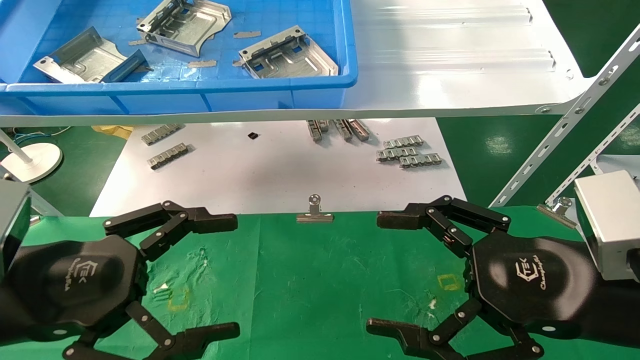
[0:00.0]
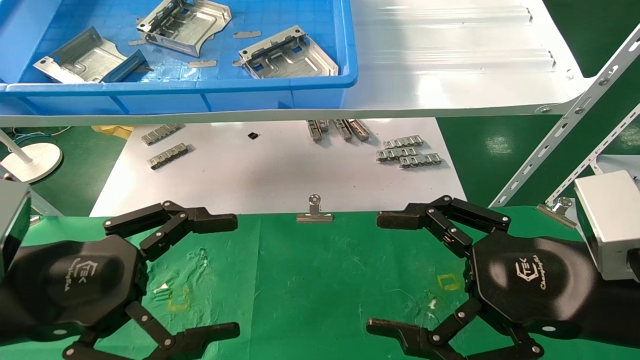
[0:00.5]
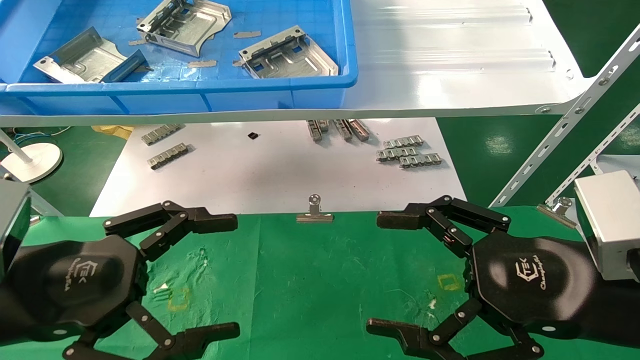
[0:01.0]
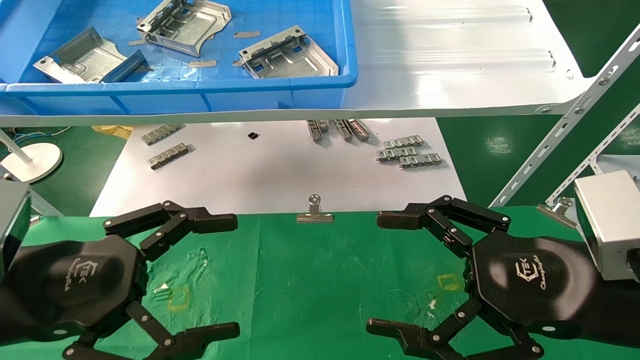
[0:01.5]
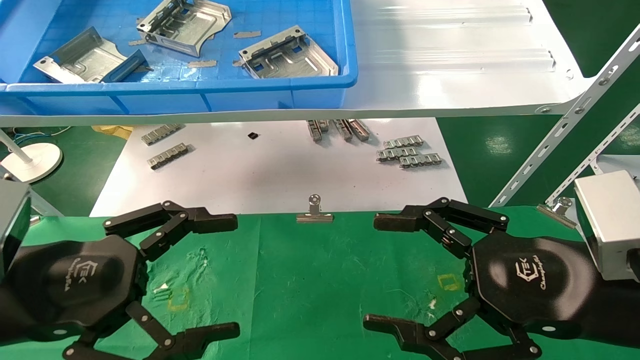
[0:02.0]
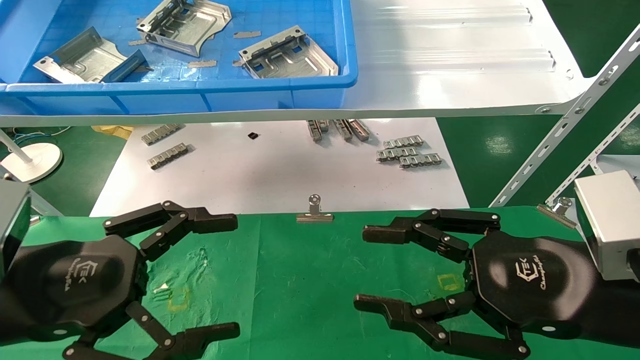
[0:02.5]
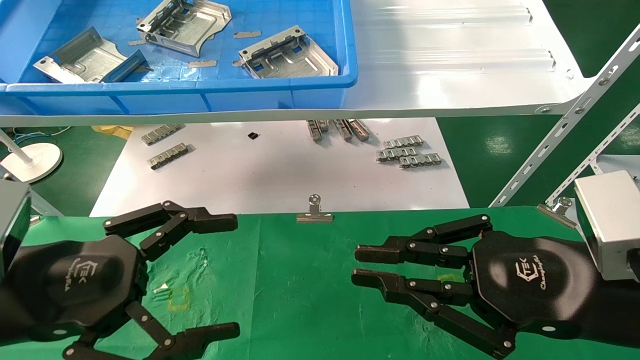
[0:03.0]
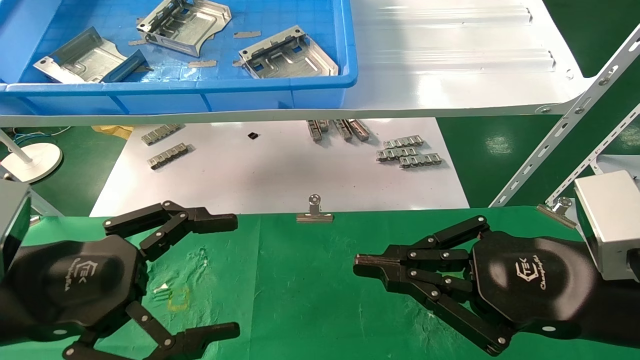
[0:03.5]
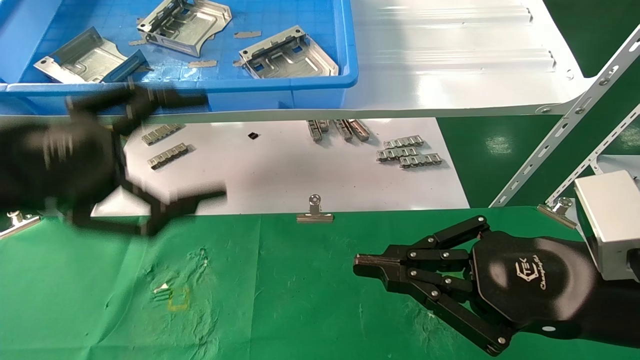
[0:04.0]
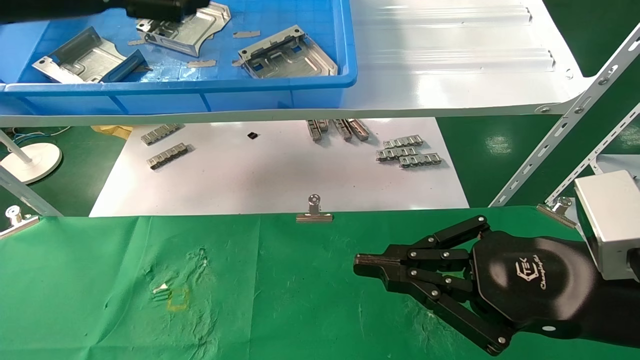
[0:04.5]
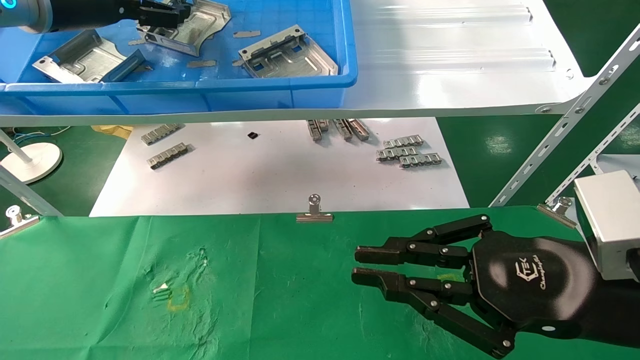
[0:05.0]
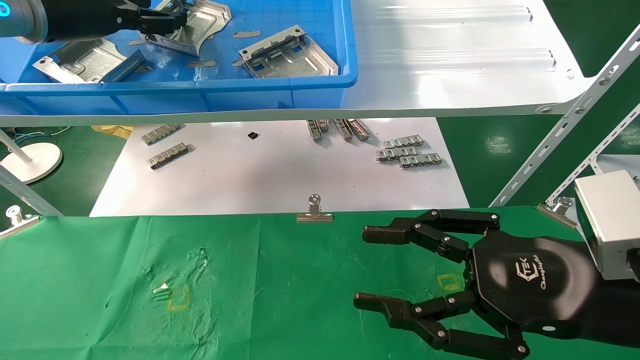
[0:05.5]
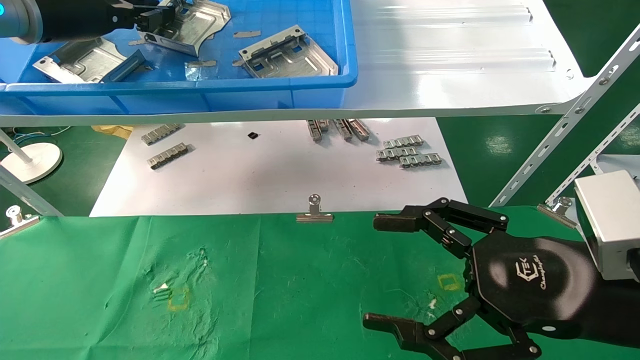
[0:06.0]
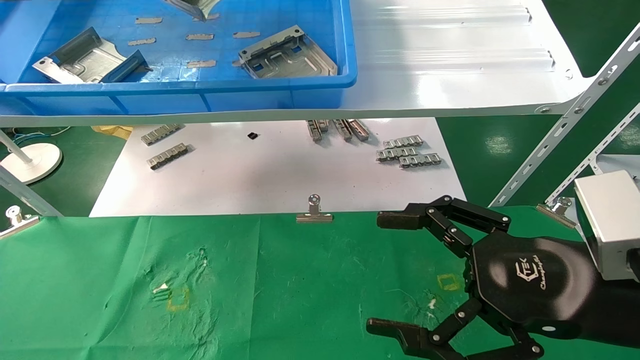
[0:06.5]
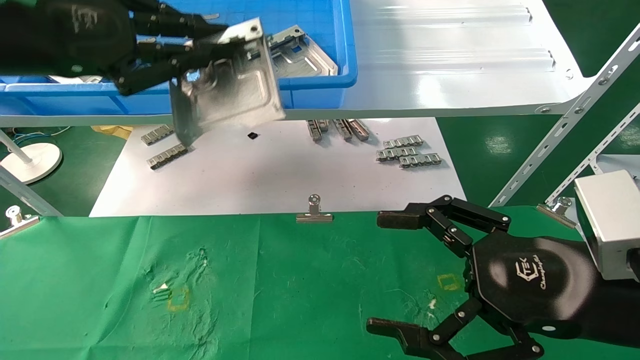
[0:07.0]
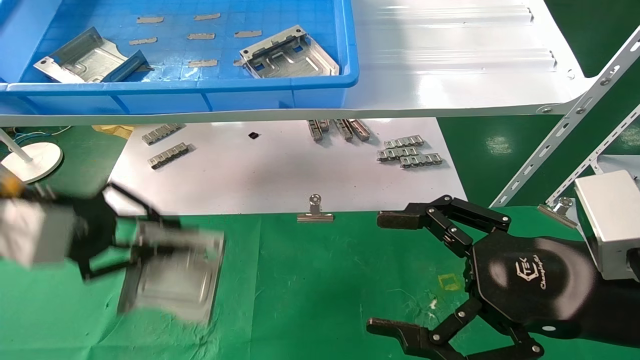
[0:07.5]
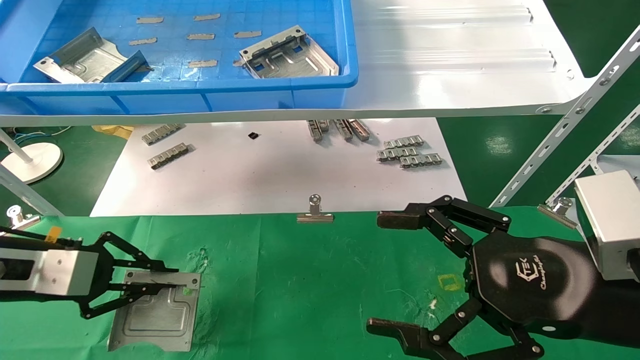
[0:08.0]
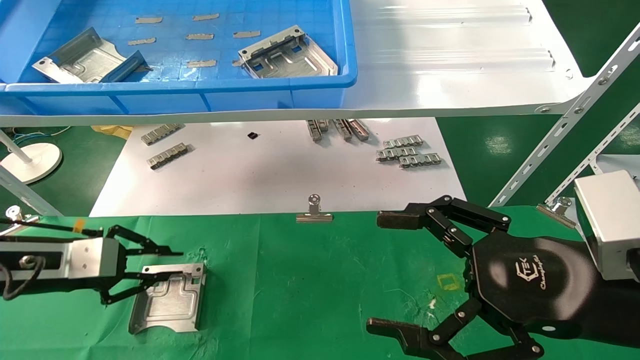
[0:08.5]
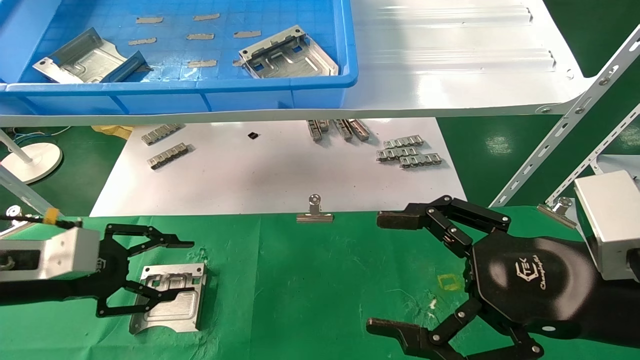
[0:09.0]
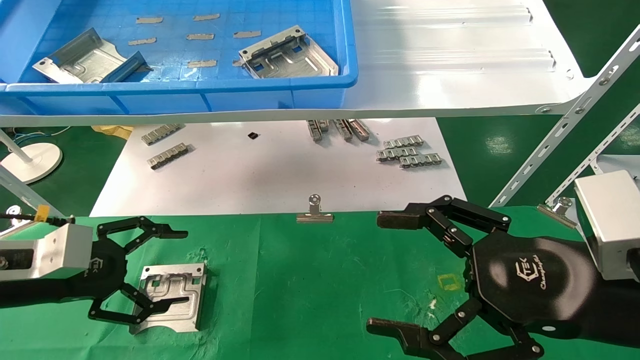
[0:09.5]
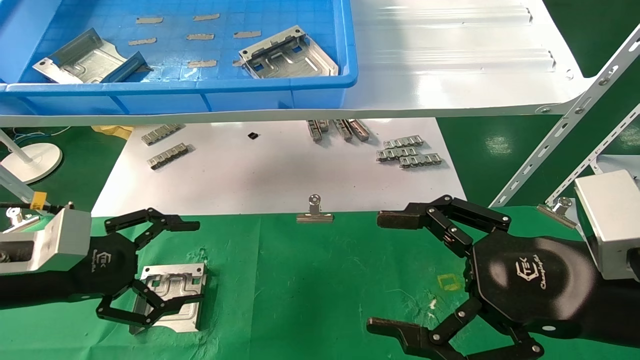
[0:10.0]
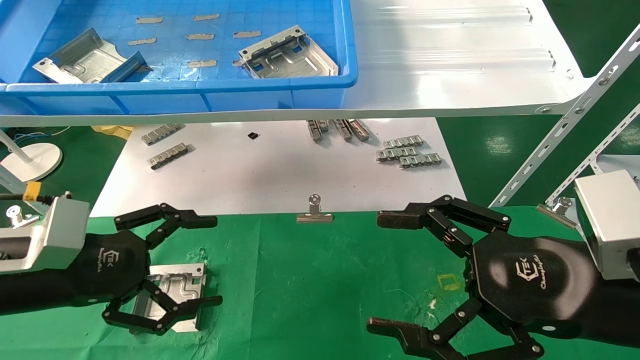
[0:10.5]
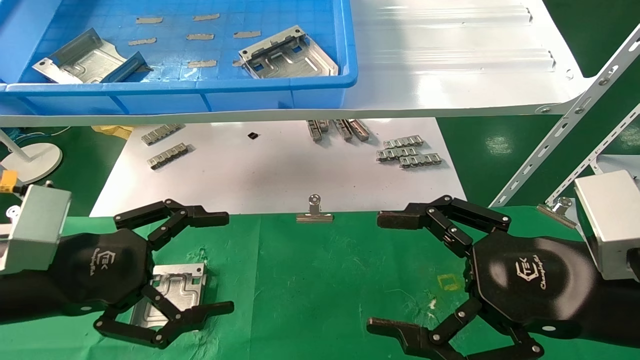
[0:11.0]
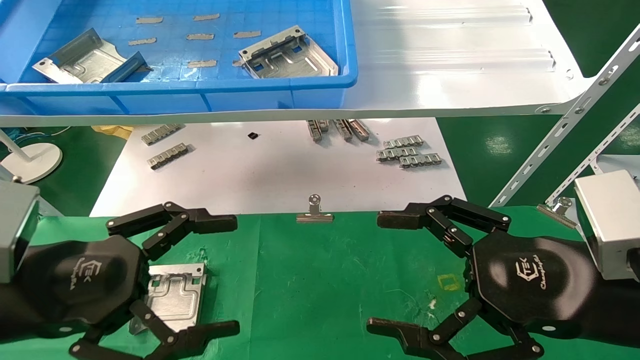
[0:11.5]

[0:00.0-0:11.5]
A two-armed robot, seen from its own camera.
Task of the whole recording: use the mechanical arm to pick up the parts and place them on the table.
Step, 0:04.5 to 0:06.0: Pick up the hard drive bracket from the feeding area.
Step, 0:06.5 to 0:08.5: Place the hard drive bracket into the box.
0:00.0 to 0:02.0: The two grippers keep their place.
0:02.0 to 0:04.0: The left gripper is displaced upward by some 10 cm; the right gripper closes up.
0:04.0 to 0:06.0: The right gripper opens, while the left gripper heads forward and upward, covering about 20 cm, and closes its fingers.
0:06.0 to 0:07.5: The left gripper shifts some 25 cm downward and backward.
0:07.5 to 0:09.5: The left gripper goes approximately 10 cm downward, and opens.
0:09.5 to 0:11.5: The left gripper heads backward and to the right, covering some 10 cm.
